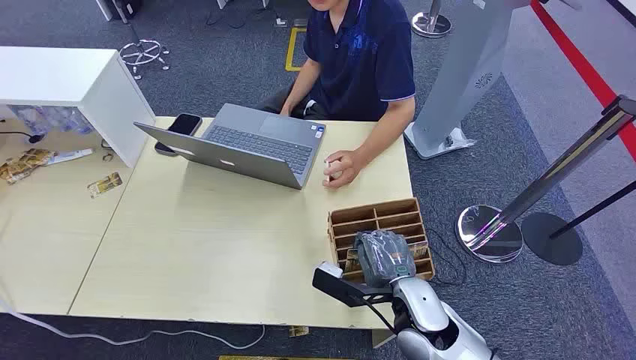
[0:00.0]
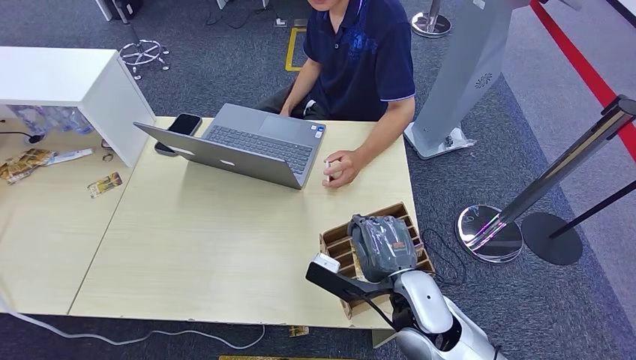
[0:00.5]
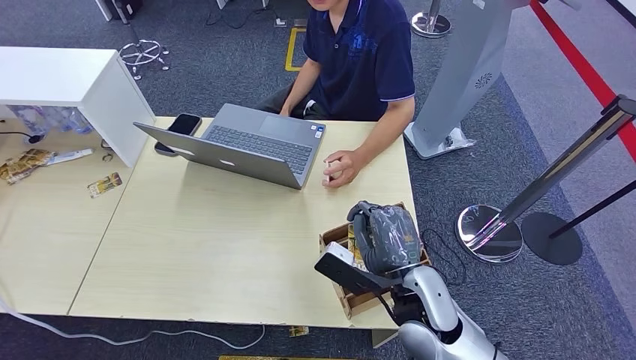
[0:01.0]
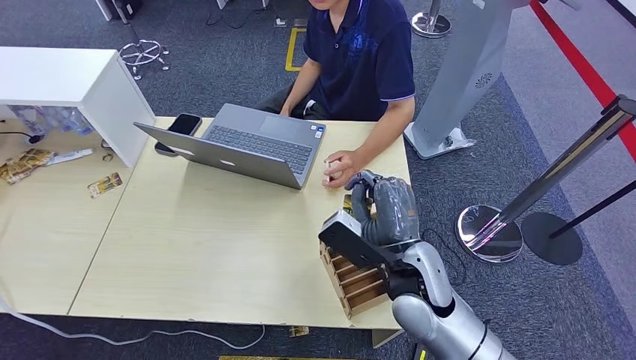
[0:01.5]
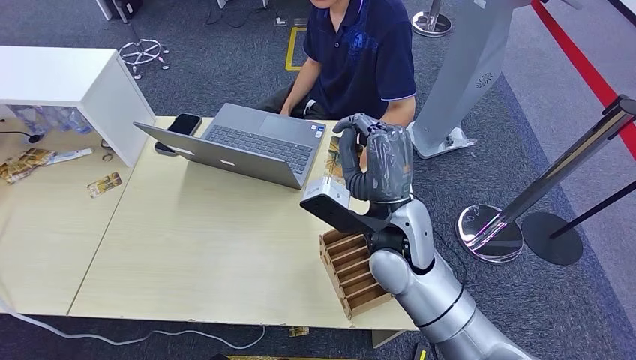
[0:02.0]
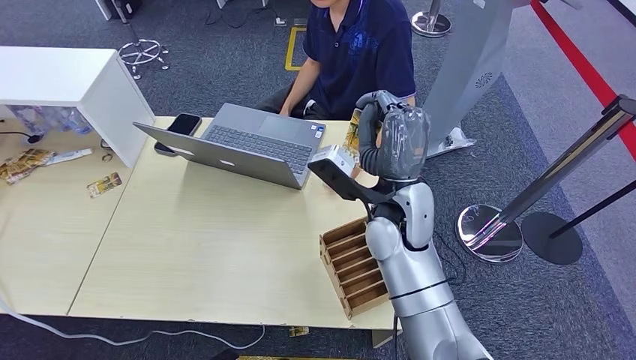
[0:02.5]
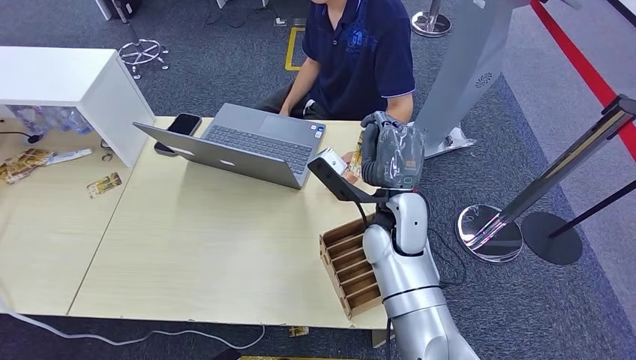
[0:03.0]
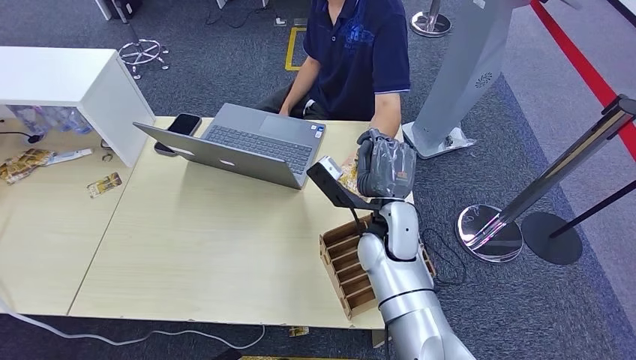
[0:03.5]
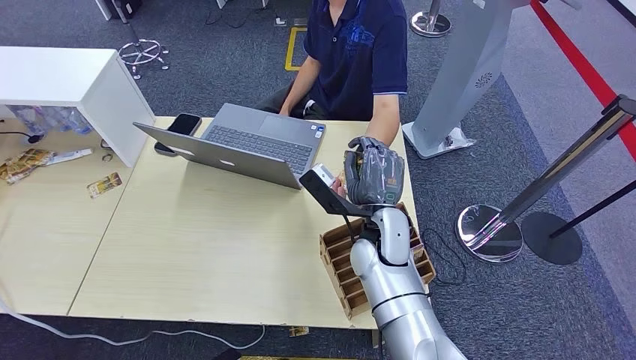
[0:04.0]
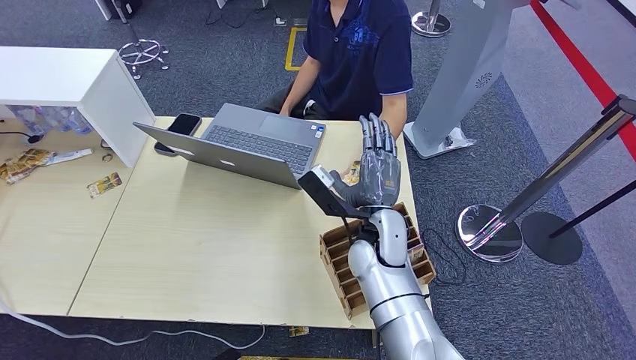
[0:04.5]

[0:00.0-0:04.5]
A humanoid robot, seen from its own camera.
Step, 0:00.0 to 0:01.0: Pick up the room card from the card holder.
0:02.0 to 0:04.5: The right hand is displaced downward by some 5 cm.
